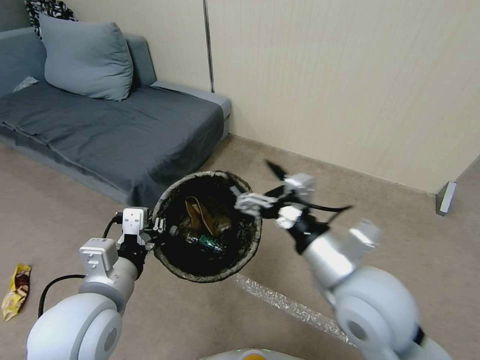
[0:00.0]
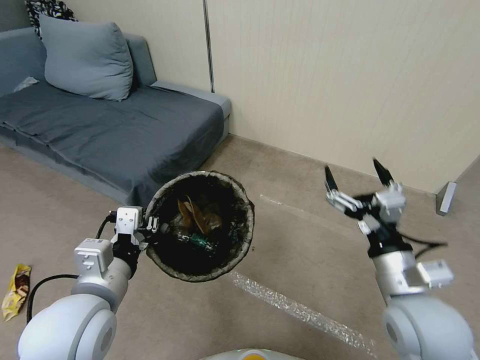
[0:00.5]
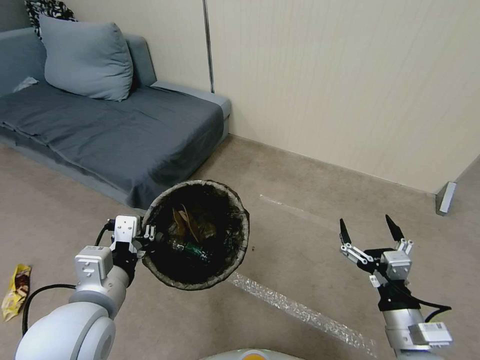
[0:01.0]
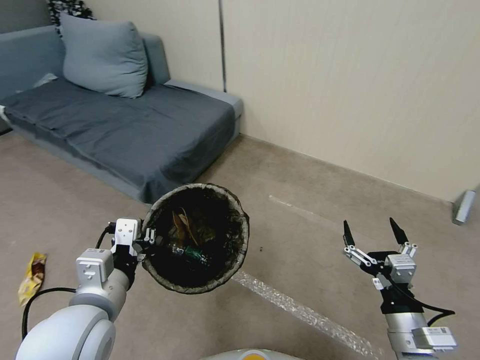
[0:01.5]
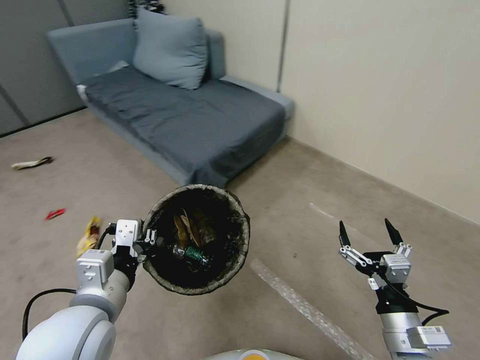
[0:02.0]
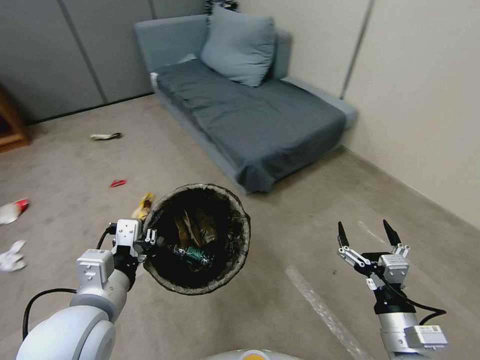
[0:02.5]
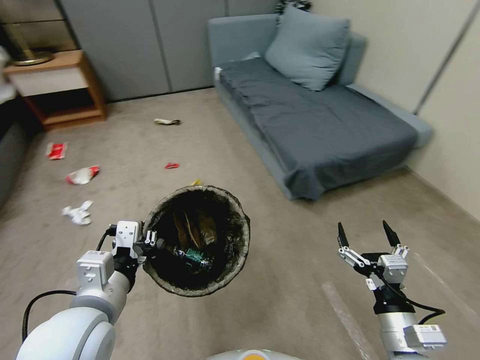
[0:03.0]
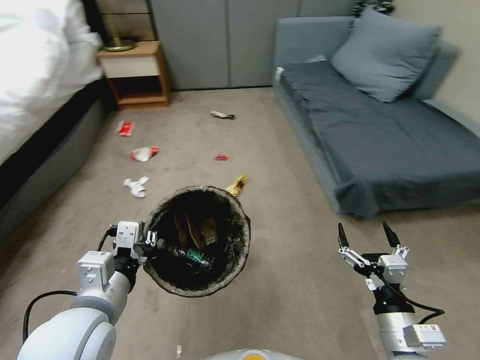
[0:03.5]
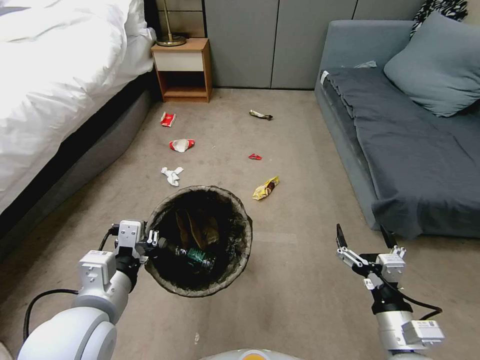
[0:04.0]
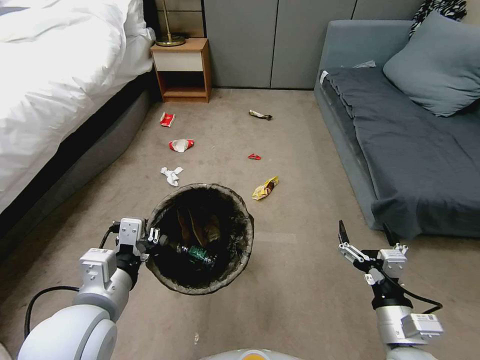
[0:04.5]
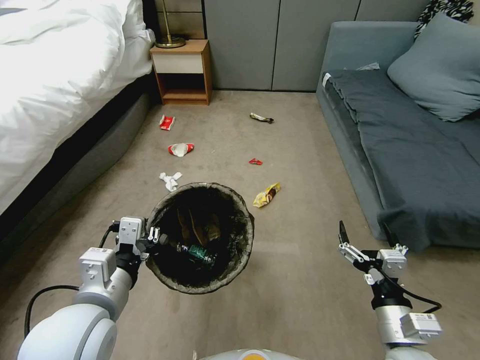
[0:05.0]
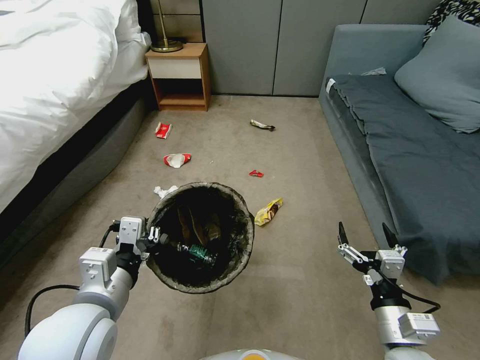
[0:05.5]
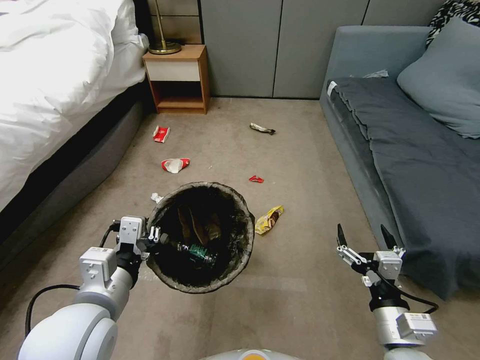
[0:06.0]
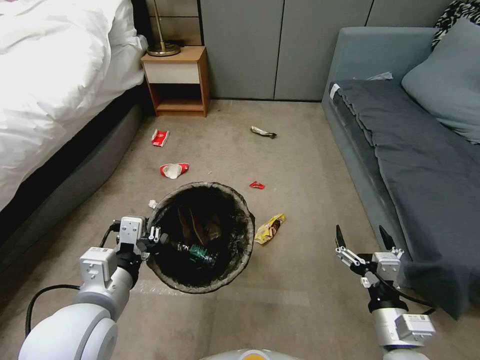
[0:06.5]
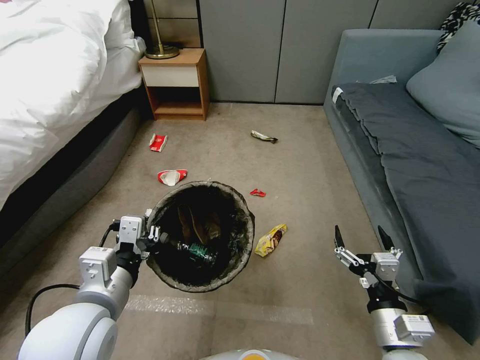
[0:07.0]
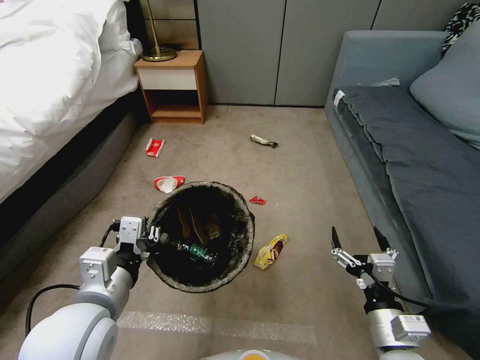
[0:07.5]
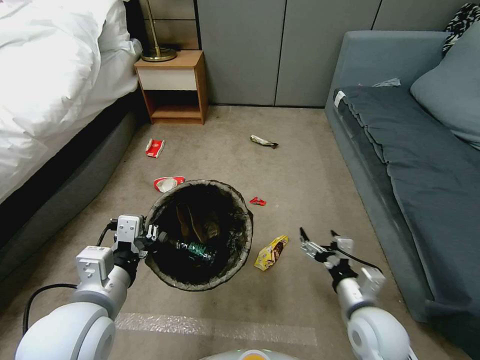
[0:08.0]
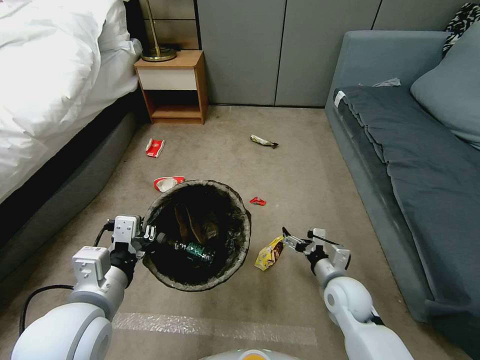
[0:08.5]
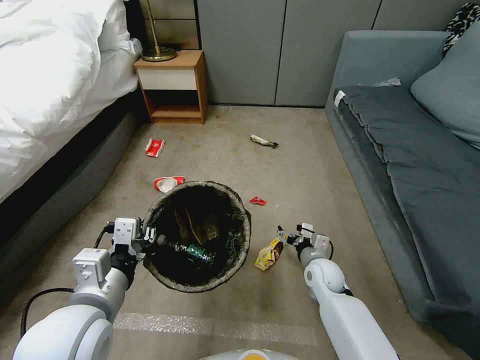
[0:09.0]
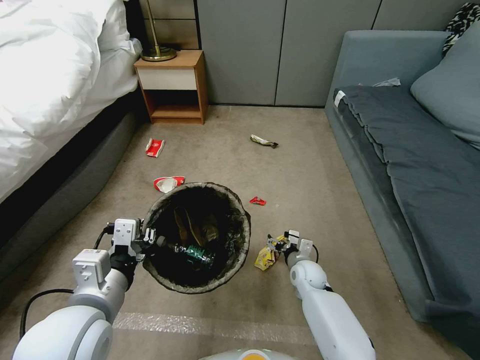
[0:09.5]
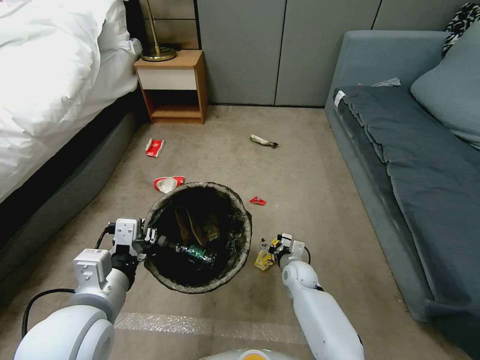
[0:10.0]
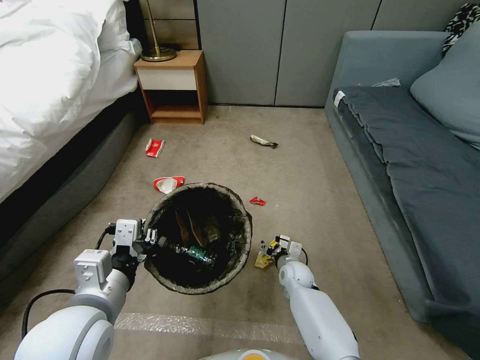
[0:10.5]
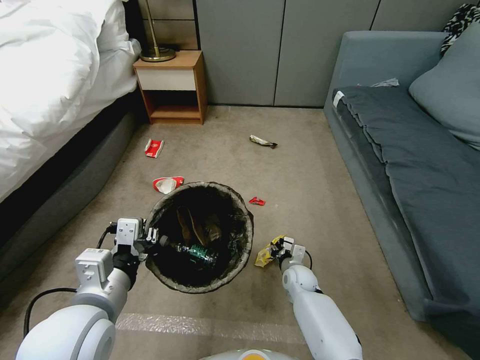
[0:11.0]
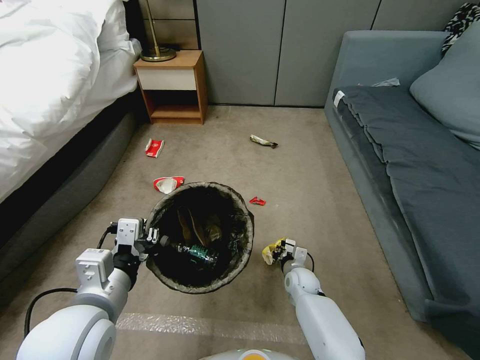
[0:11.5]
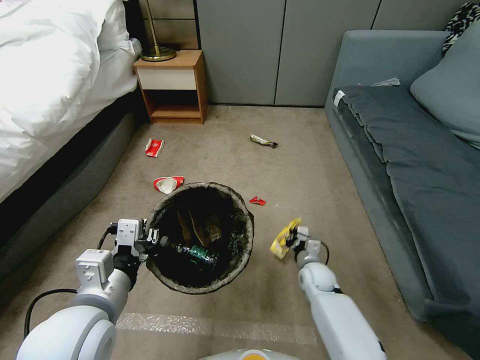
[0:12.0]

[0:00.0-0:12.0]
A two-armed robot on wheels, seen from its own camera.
Task of the whole recording: Pick up the trash bin, then pick up the garbage from the floor and place it into the trash bin.
0.0 to 2.0 s: The right gripper heads downward, to the right and backward, covering some 20 cm.
6.0 to 8.0 s: The right gripper moves forward, approximately 10 cm.
8.0 to 10.0 s: The right gripper is displaced downward, forward and to the left by about 25 cm.
10.0 to 12.0 s: The right gripper closes its fingers.

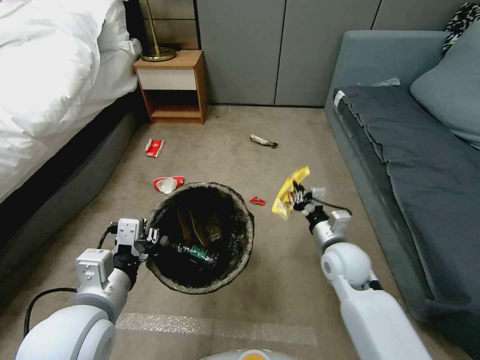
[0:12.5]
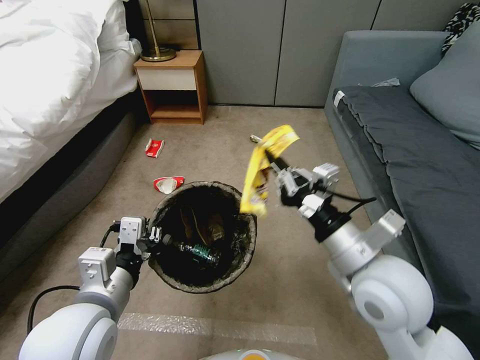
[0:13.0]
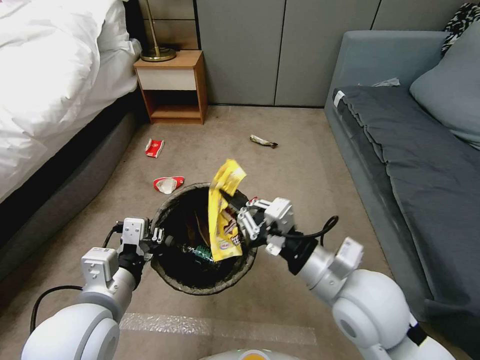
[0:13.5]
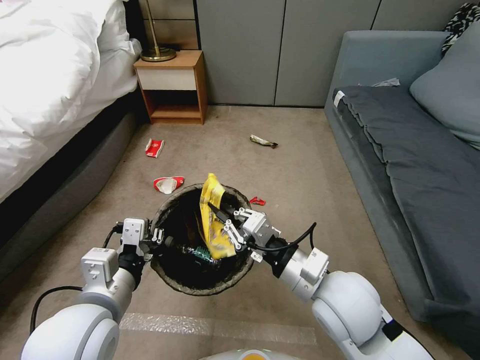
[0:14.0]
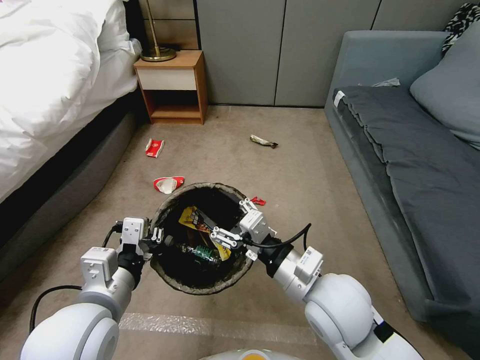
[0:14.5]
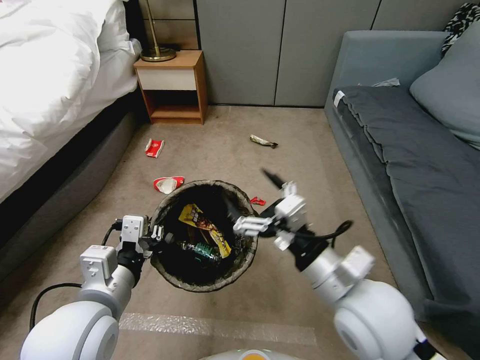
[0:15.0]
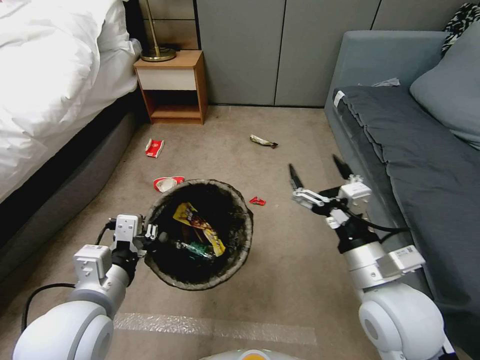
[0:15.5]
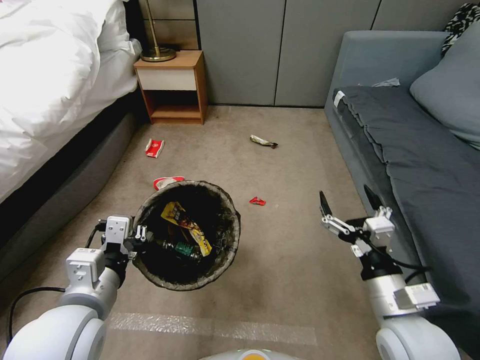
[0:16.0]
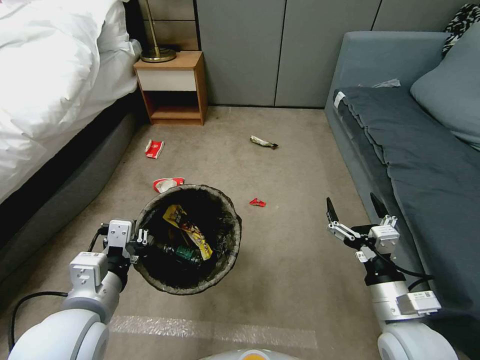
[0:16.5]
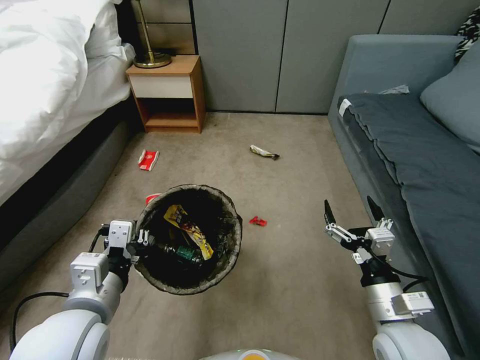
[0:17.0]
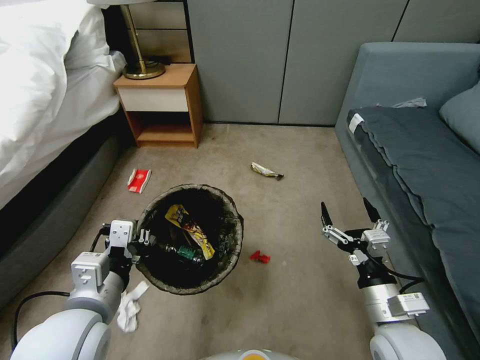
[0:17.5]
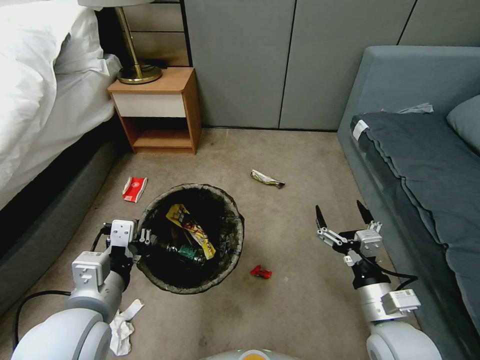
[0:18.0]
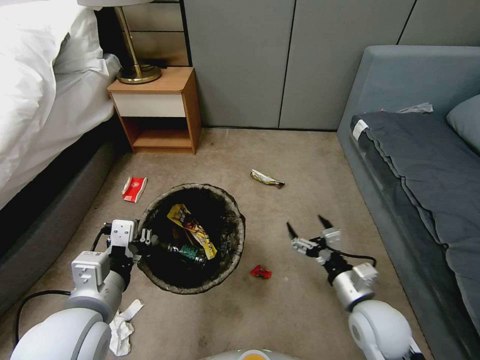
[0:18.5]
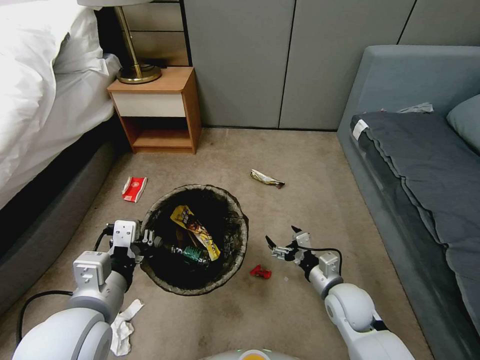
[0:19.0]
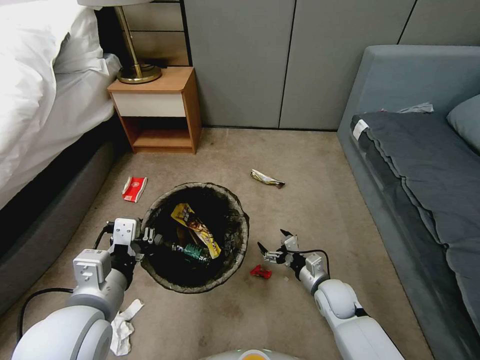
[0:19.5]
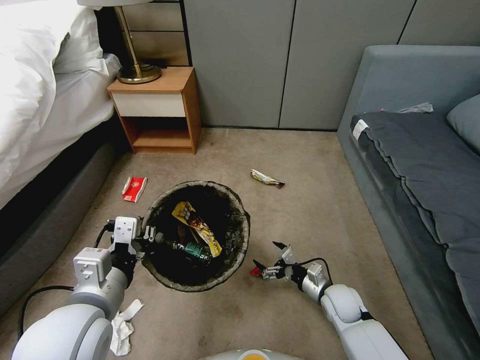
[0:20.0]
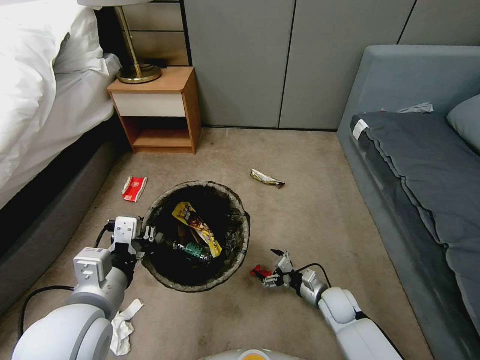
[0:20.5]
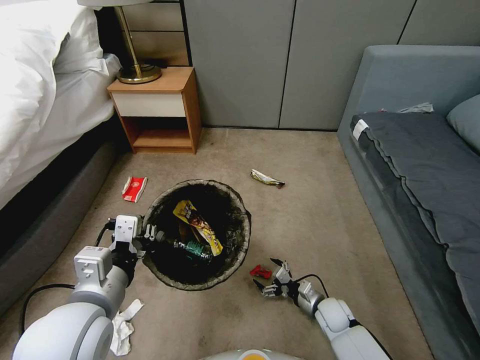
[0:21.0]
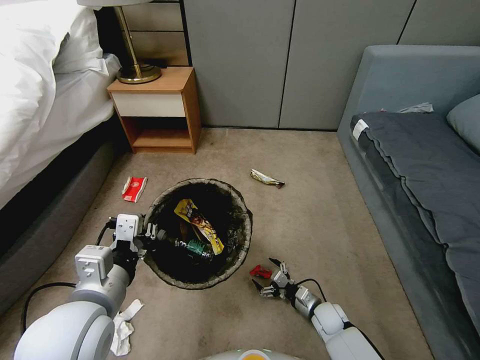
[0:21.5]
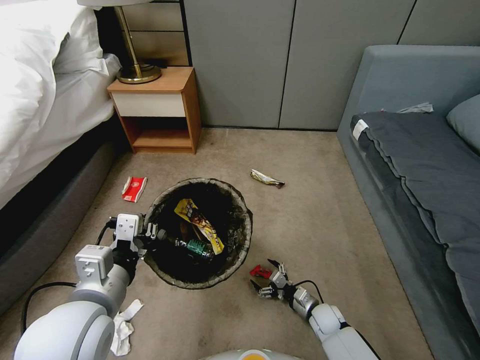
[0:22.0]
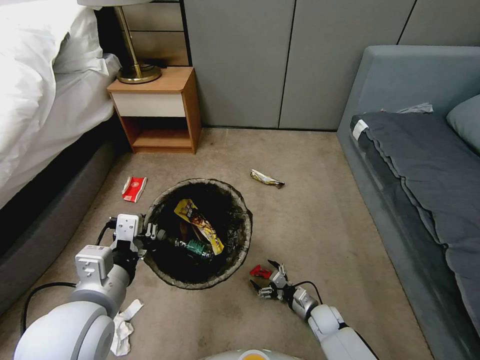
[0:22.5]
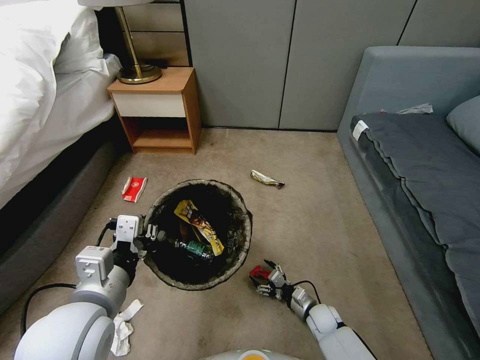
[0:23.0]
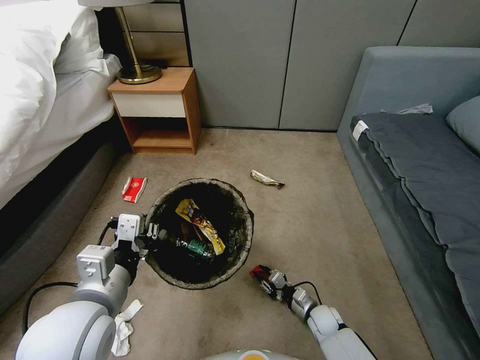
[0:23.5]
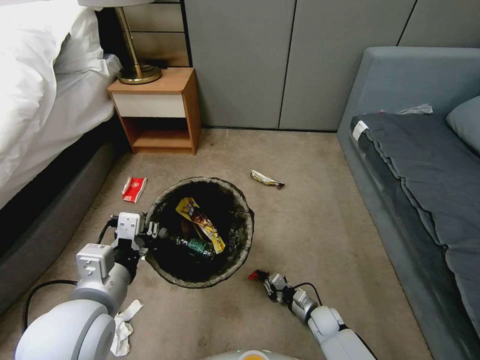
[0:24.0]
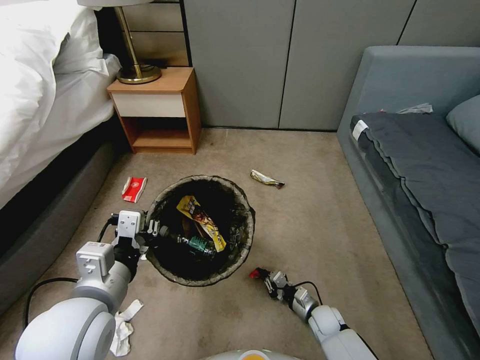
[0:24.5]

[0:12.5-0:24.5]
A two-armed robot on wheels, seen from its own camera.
Task of the whole recording: Pick up the trash bin, then pick up the garbage from the floor and place it into the trash bin.
12.5 to 14.5 s: The right gripper travels backward, upward and to the left by approximately 15 cm, and opens its fingers.
14.5 to 16.5 s: The right gripper goes roughly 15 cm to the right and downward, and opens up.
16.5 to 18.5 s: The right gripper changes place by about 5 cm.
18.5 to 20.5 s: The right gripper shifts approximately 20 cm downward and forward.
20.5 to 22.5 s: The right gripper is displaced downward by roughly 10 cm.
22.5 to 24.5 s: The right gripper closes.

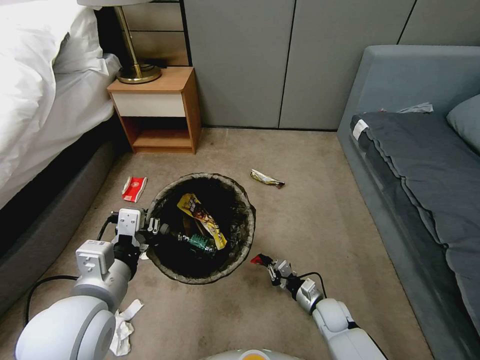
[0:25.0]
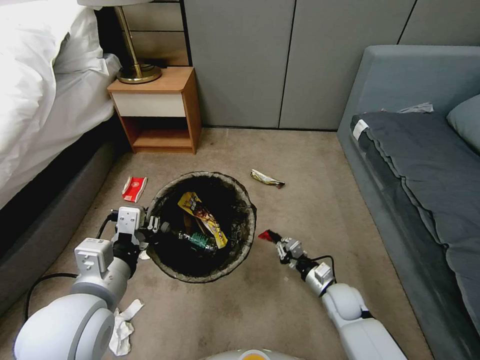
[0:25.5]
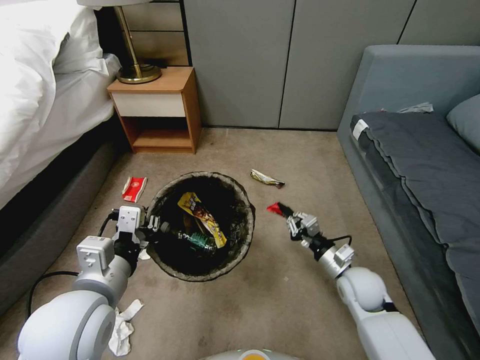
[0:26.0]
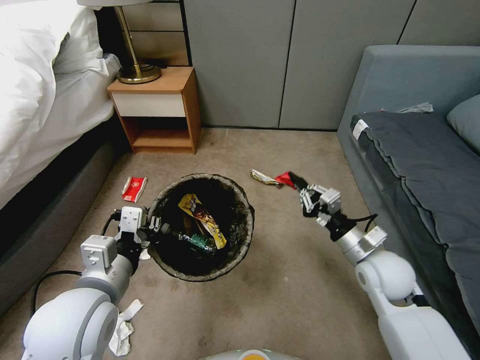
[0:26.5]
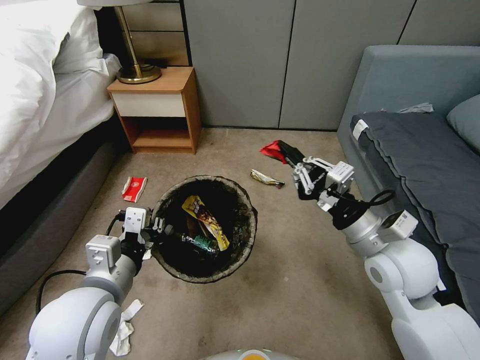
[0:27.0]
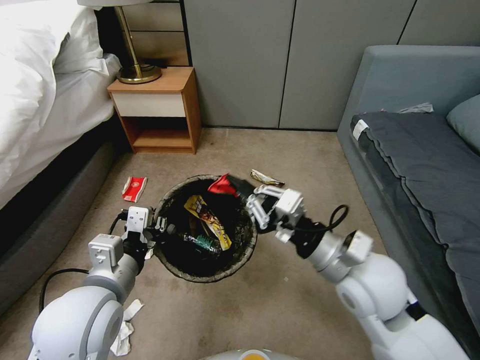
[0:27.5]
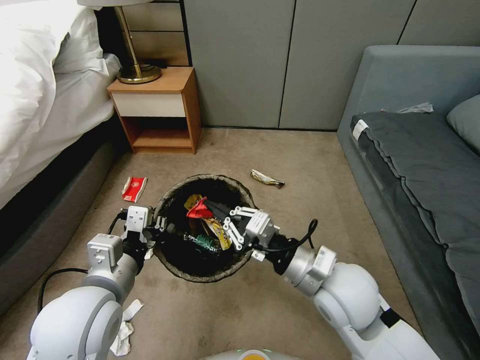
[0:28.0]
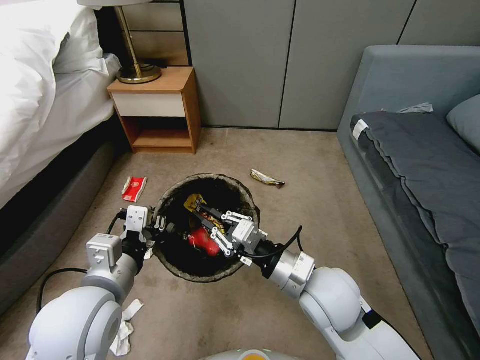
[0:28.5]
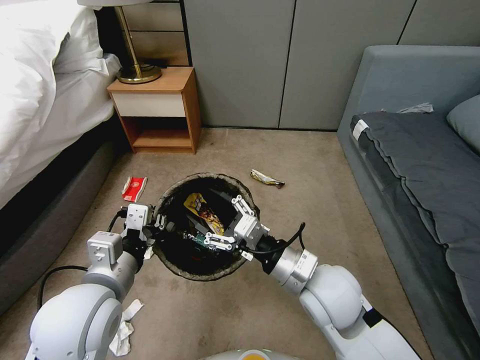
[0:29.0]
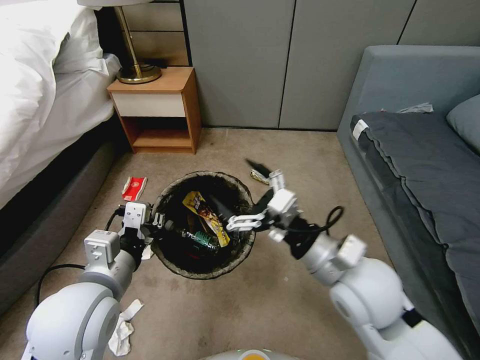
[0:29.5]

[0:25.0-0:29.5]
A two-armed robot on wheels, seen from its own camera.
Task of the whole recording: Pick up the trash bin, then pick up the garbage from the floor and place it into the trash bin.
25.0 to 27.0 s: The right gripper heads upward, covering approximately 35 cm.
27.0 to 29.5 s: The right gripper goes about 10 cm to the left, and opens.
